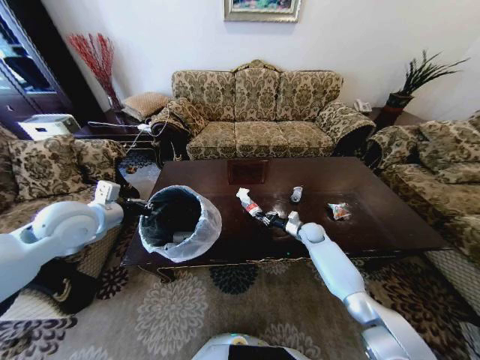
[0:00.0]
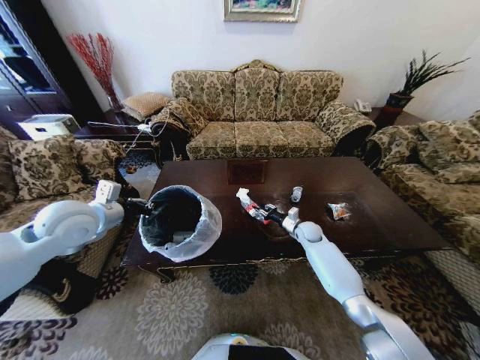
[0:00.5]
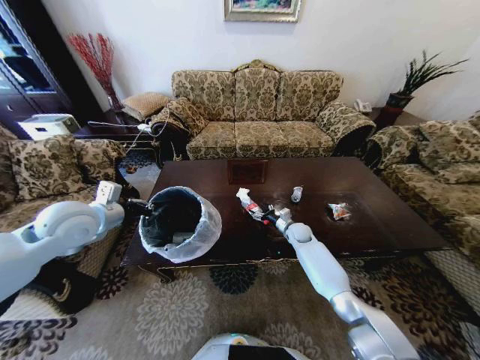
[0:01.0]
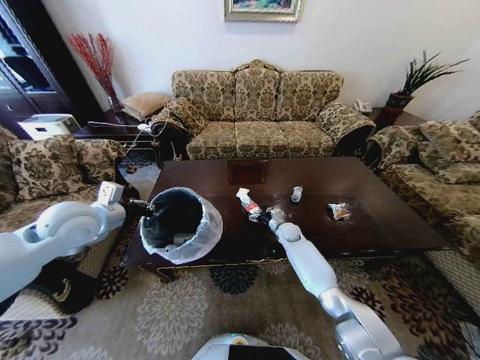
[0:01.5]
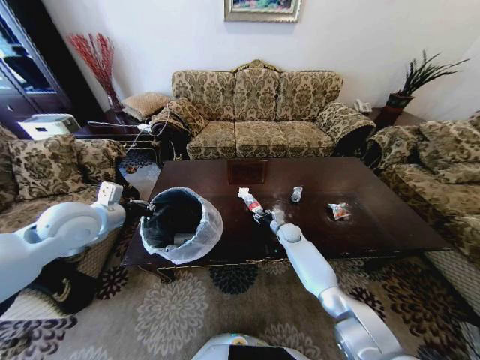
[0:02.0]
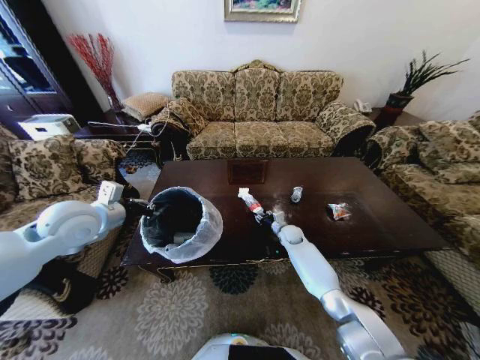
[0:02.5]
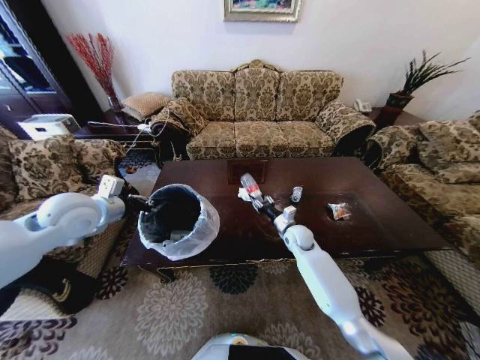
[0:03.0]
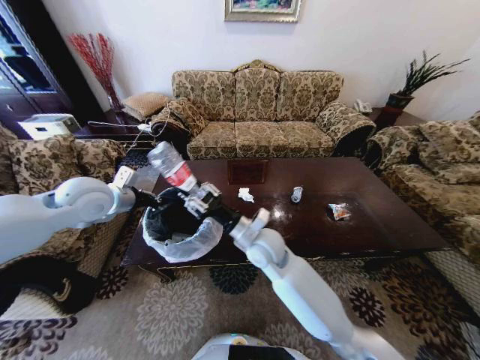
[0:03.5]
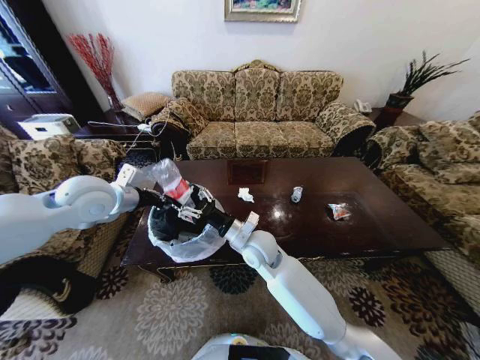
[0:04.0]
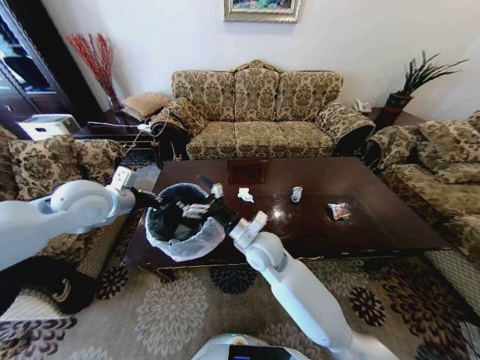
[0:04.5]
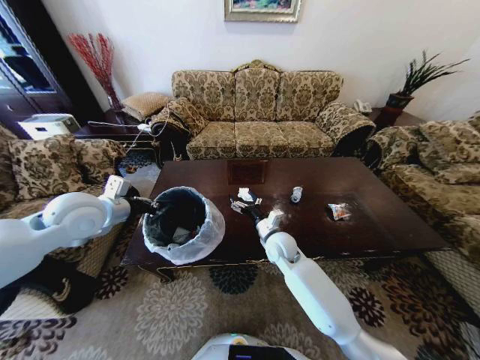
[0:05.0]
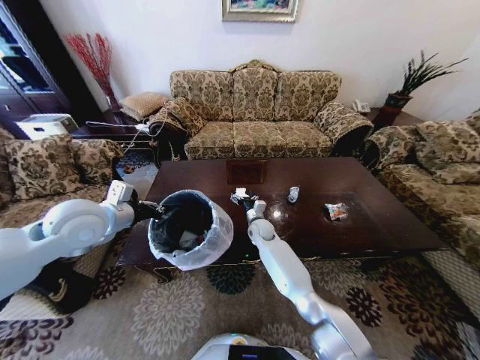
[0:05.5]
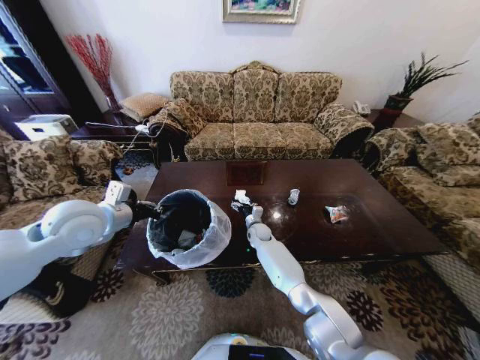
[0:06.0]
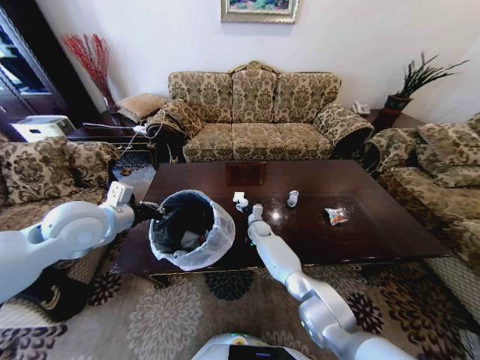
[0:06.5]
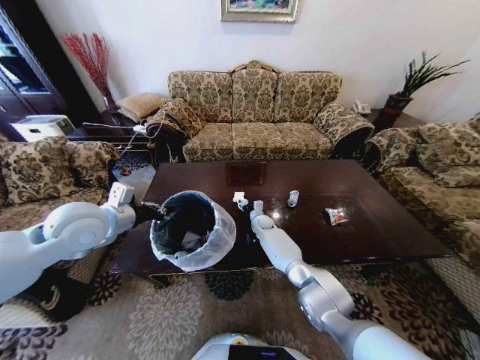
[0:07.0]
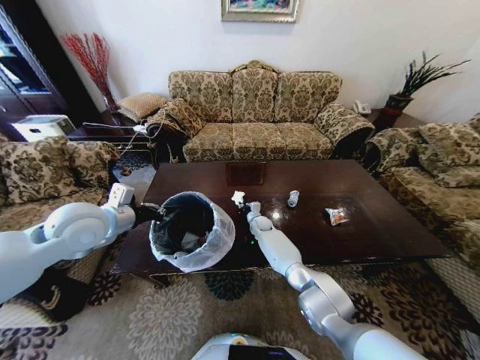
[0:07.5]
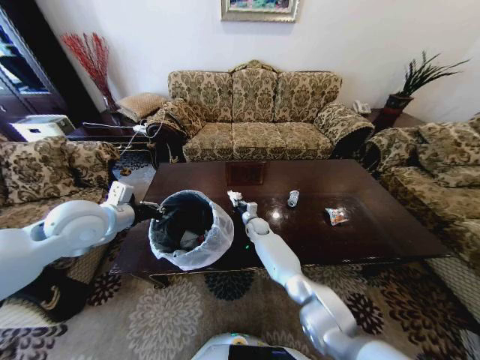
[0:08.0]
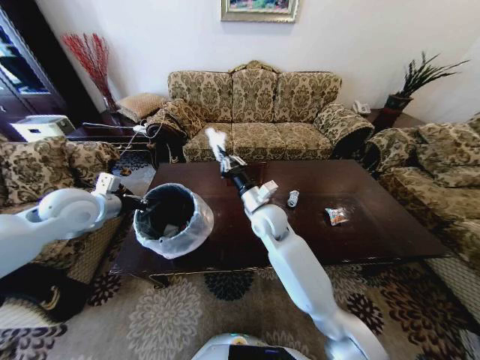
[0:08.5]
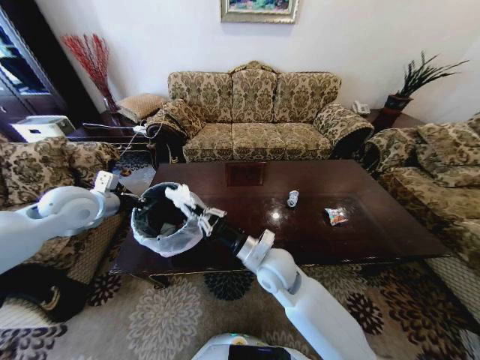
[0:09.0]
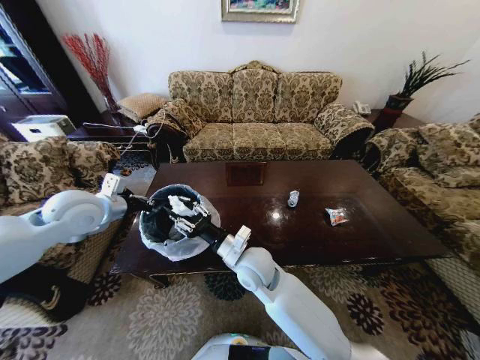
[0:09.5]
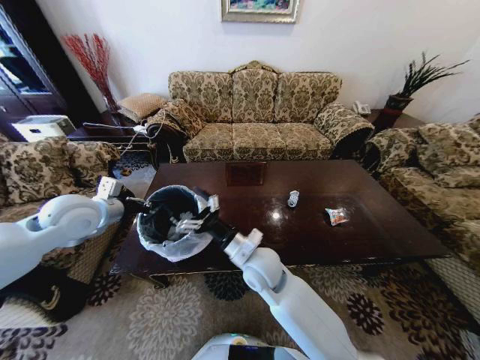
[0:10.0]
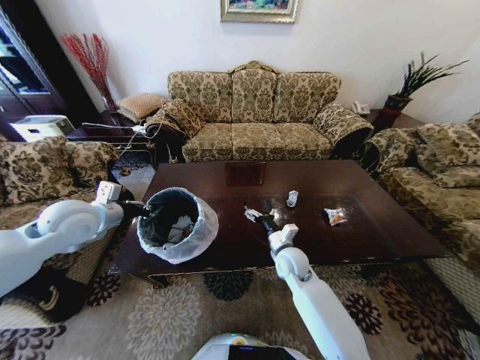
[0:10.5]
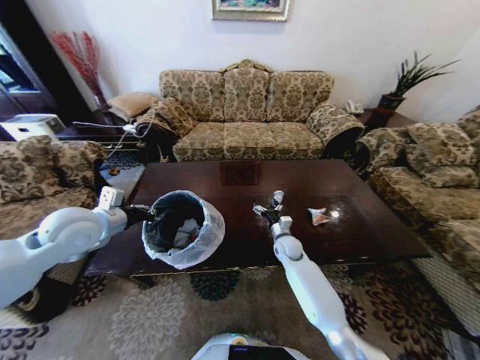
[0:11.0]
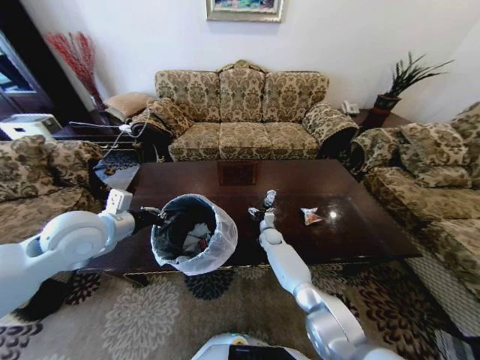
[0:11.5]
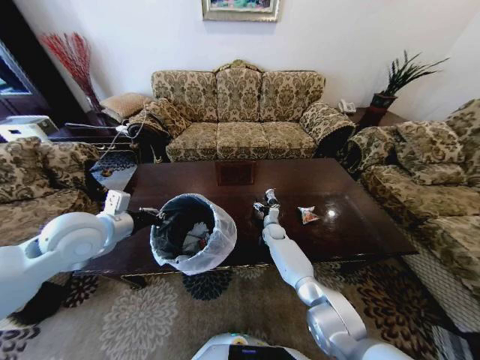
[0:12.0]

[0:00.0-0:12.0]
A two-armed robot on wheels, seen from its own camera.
Task of the whole recording: Move to the front of the table and place the trash on the table into the trash bin.
0:00.0 to 0:02.0: The right gripper goes approximately 10 cm to the left, and opens its fingers.
0:02.0 to 0:04.0: The left gripper ends up some 5 cm from where it was; the right gripper is displaced upward, backward and to the left by roughly 30 cm.
0:04.0 to 0:06.0: The left gripper ends up some 5 cm from where it was, while the right gripper travels downward and forward by about 25 cm.
0:06.0 to 0:08.0: The right gripper closes its fingers.
0:08.0 to 0:10.0: The right gripper is displaced backward and upward by about 30 cm, and opens.
0:10.0 to 0:12.0: The left gripper shifts by some 5 cm. The right gripper goes approximately 35 cm forward, downward and to the right.

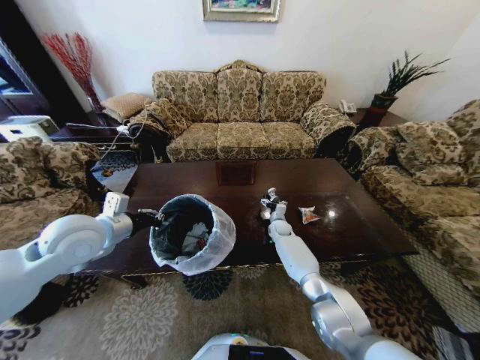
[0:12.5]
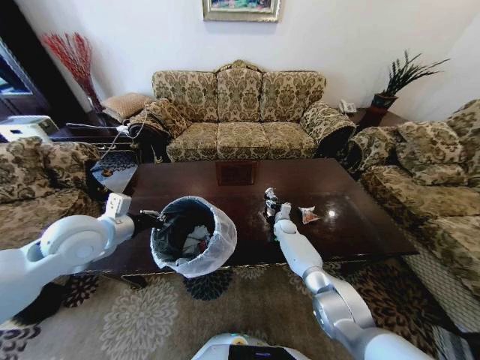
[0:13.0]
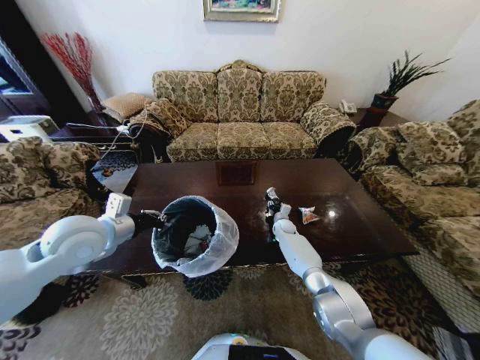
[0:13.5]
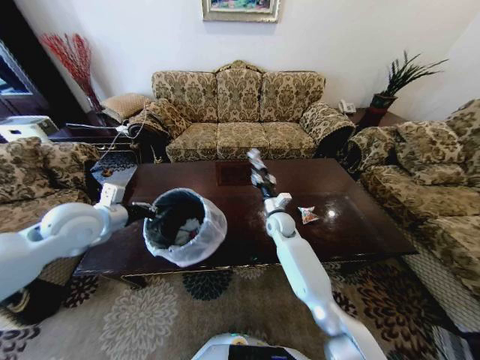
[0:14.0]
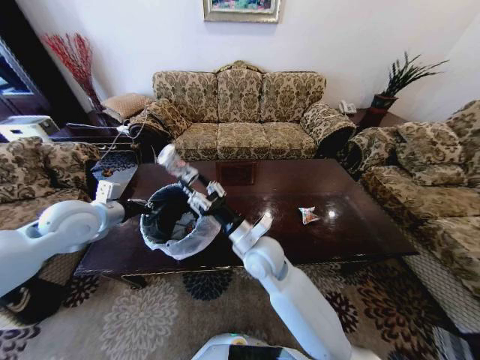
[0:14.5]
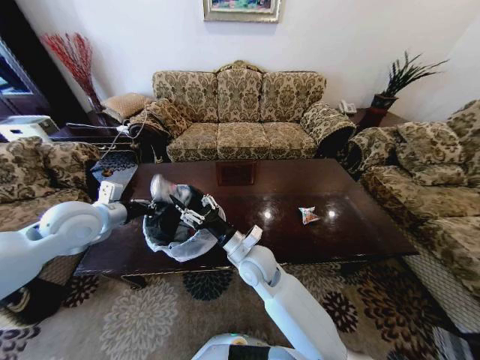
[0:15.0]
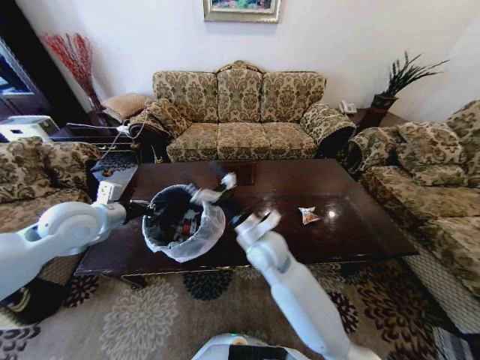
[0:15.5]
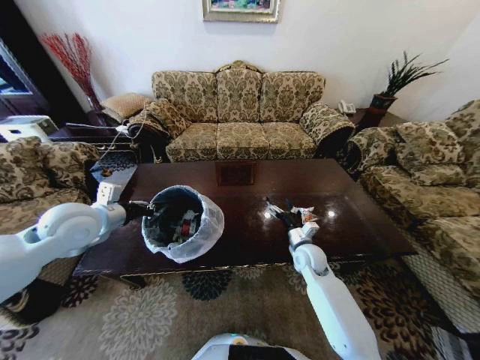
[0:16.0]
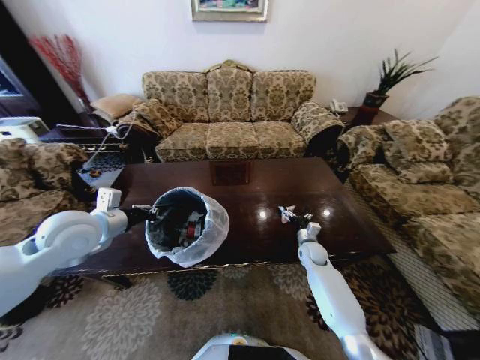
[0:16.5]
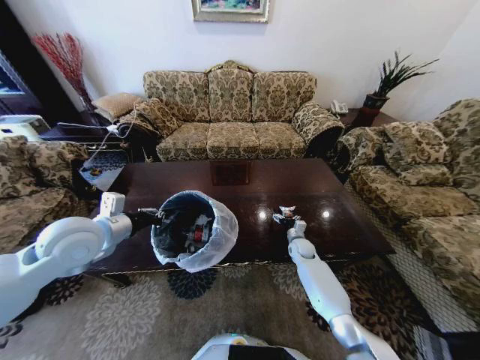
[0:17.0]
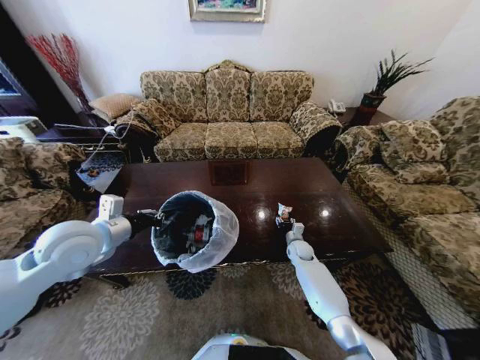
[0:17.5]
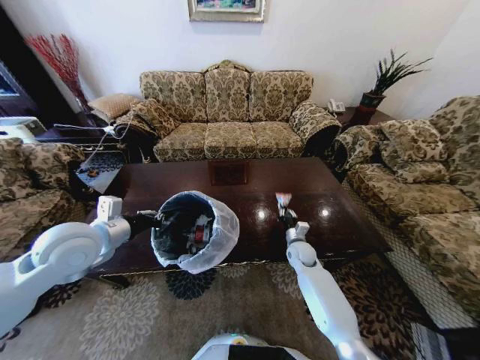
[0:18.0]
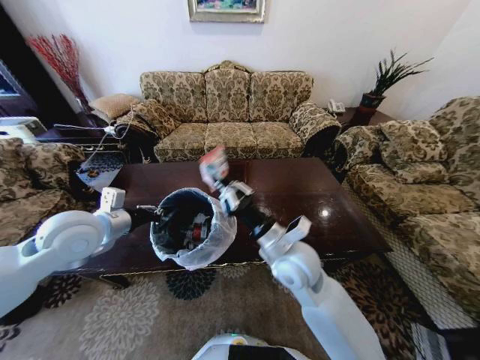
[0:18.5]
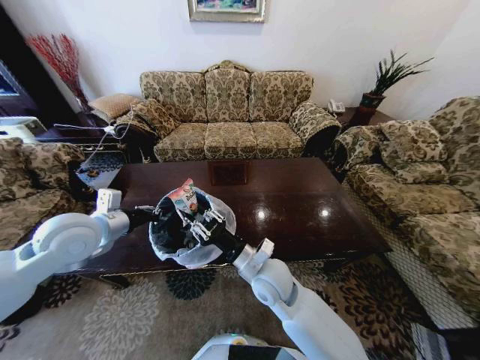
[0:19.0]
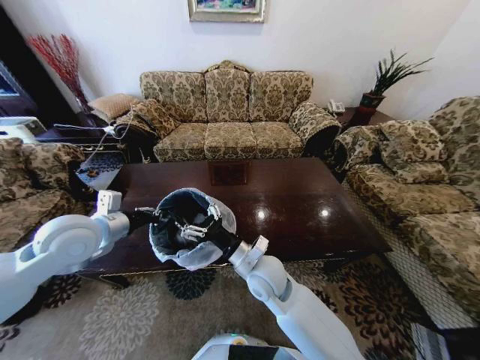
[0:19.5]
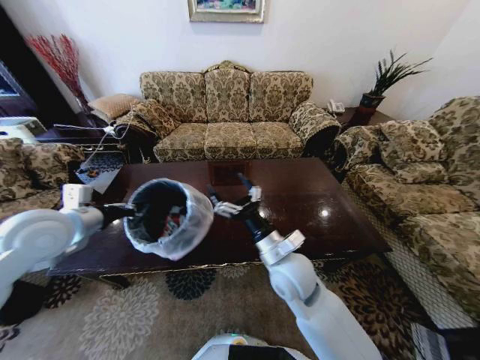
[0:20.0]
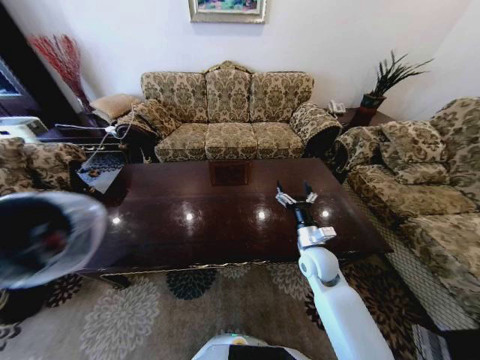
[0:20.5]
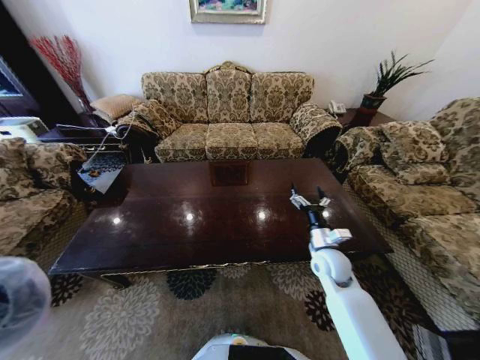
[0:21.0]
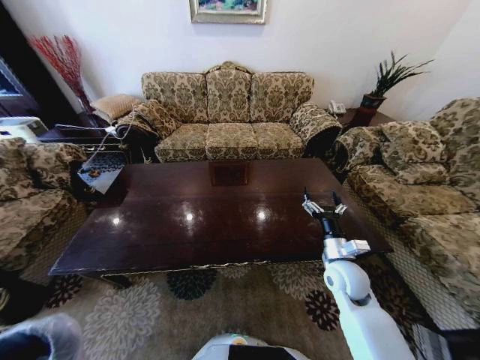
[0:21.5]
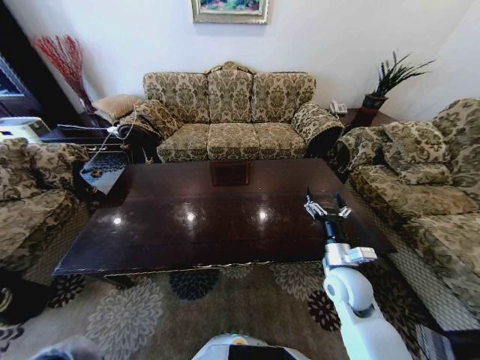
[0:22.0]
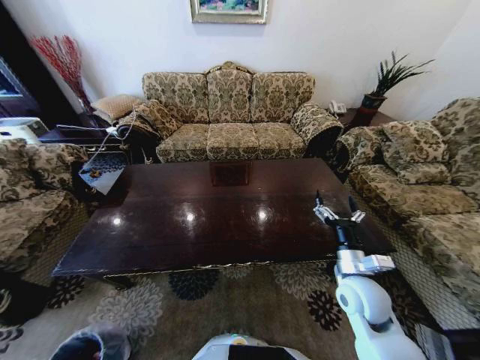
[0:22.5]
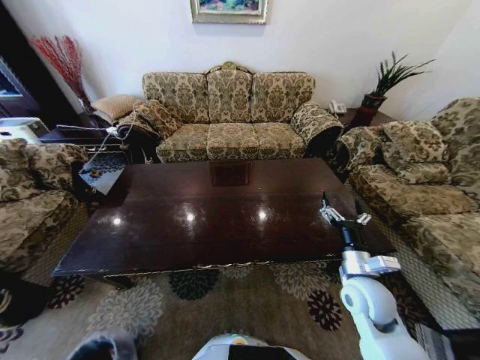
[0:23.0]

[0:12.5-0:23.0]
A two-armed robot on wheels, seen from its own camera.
Task of the whole recording: Move to the front of the table and place the trash on the table into the trash bin.
0:12.5 to 0:14.5: The right gripper shifts approximately 35 cm backward, upward and to the left, and closes up, while the left gripper shifts by about 5 cm.
0:14.5 to 0:16.5: The right gripper heads to the right, downward and forward, covering roughly 35 cm, and opens.
0:16.5 to 0:19.0: The right gripper moves to the left, upward and backward, roughly 30 cm, and closes its fingers.
0:19.0 to 0:21.0: The right gripper moves to the right, approximately 20 cm, and opens; the left gripper is displaced backward and to the left by about 35 cm.
0:21.0 to 0:23.0: The left gripper travels downward by roughly 40 cm. The right gripper heads backward, covering approximately 10 cm.

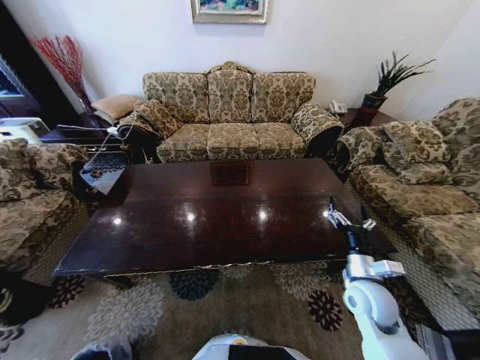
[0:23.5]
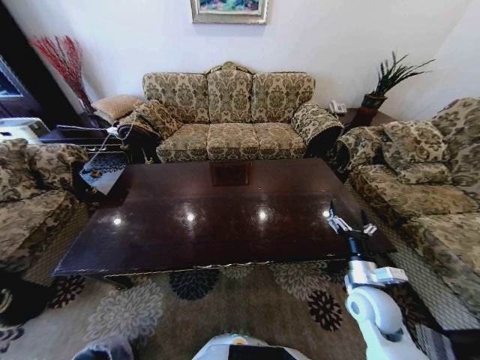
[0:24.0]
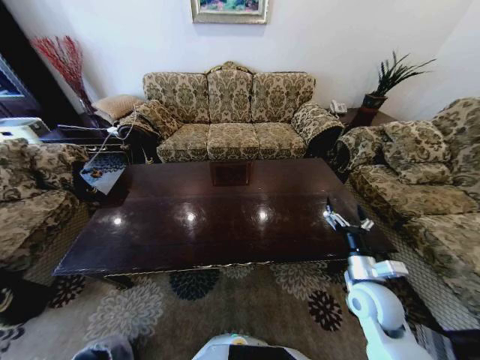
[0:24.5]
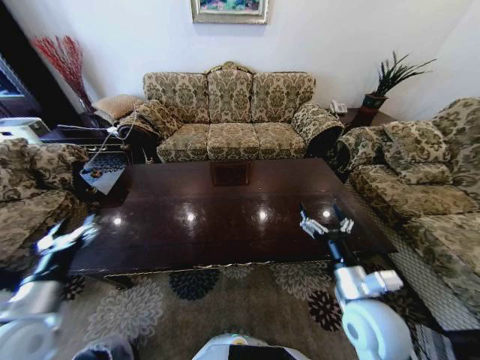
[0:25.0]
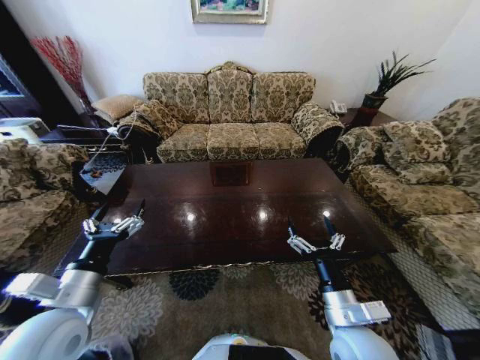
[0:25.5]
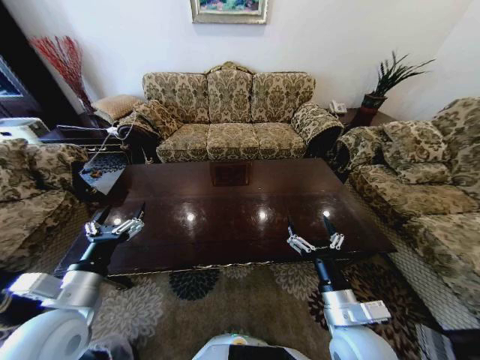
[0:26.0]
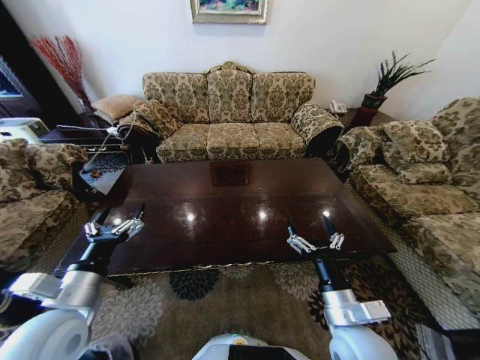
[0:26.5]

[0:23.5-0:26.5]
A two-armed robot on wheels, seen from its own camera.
Task of the whole recording: Move to the front of the table and place the trash on the table into the trash bin.
0:23.5 to 0:25.0: The right gripper is displaced backward, to the left and upward by some 10 cm. Meanwhile the left gripper travels upward and forward by approximately 40 cm.
0:25.0 to 0:26.5: The left gripper is displaced to the right by roughly 10 cm. Meanwhile the right gripper moves about 5 cm.
